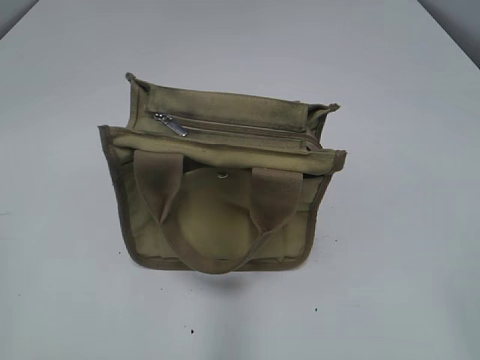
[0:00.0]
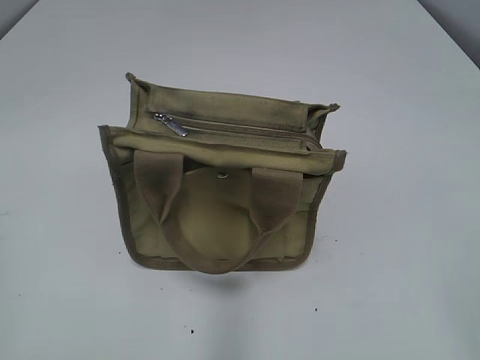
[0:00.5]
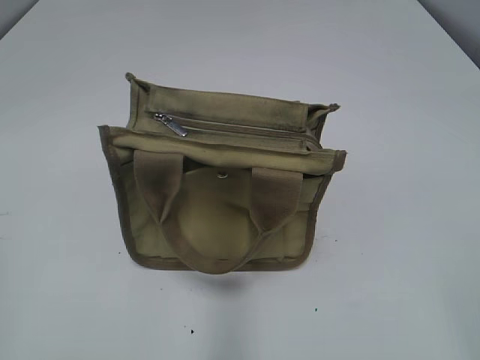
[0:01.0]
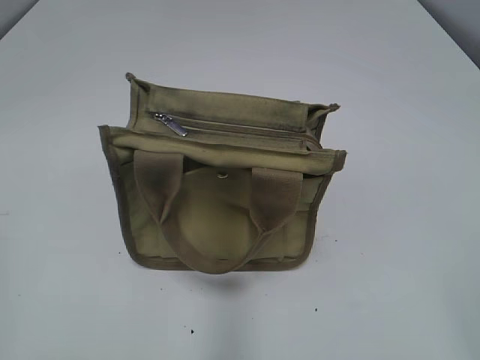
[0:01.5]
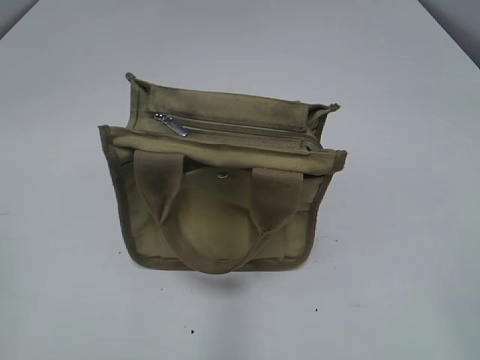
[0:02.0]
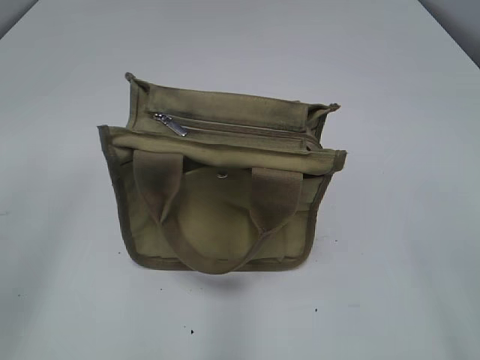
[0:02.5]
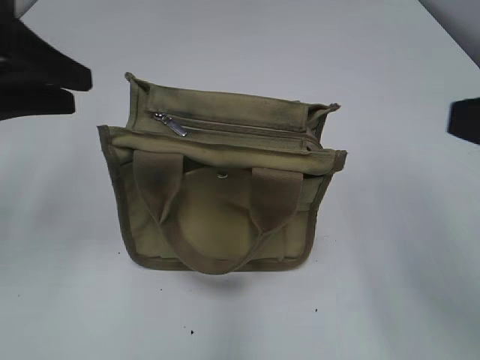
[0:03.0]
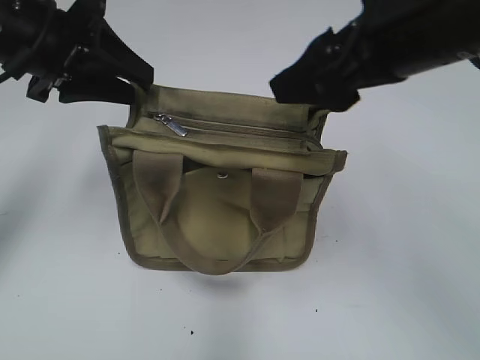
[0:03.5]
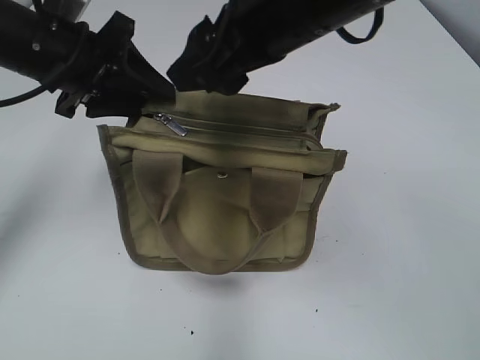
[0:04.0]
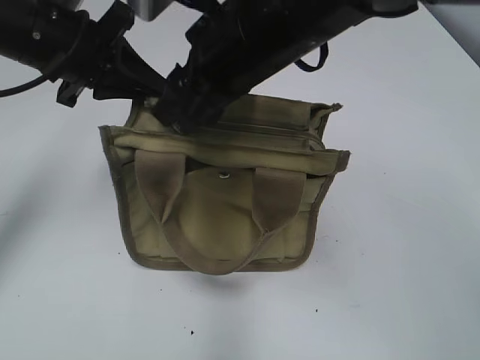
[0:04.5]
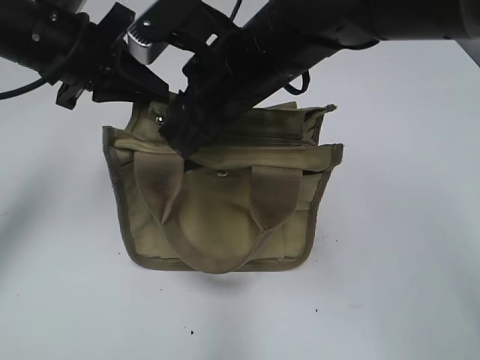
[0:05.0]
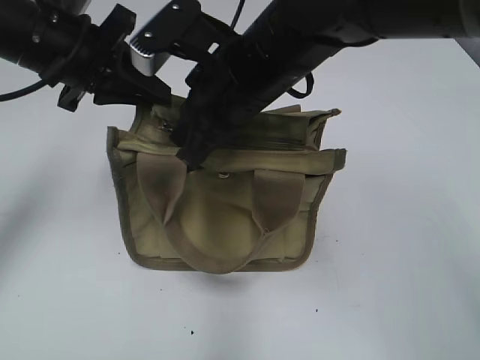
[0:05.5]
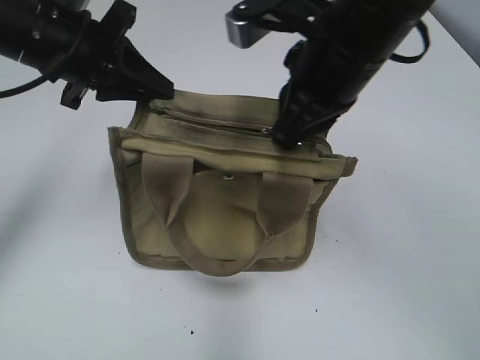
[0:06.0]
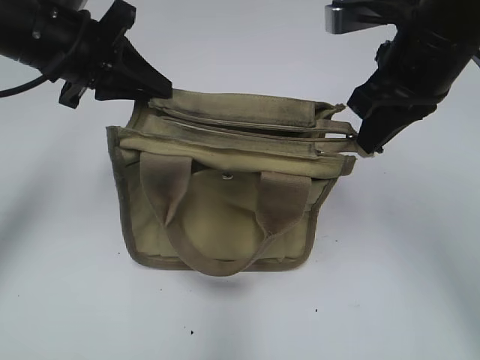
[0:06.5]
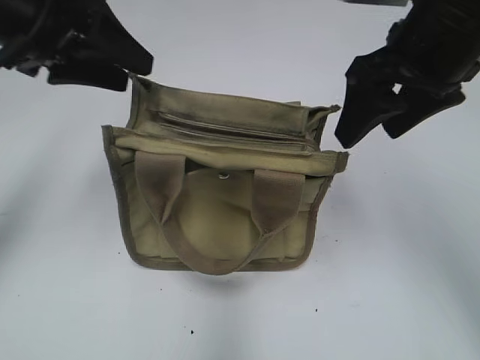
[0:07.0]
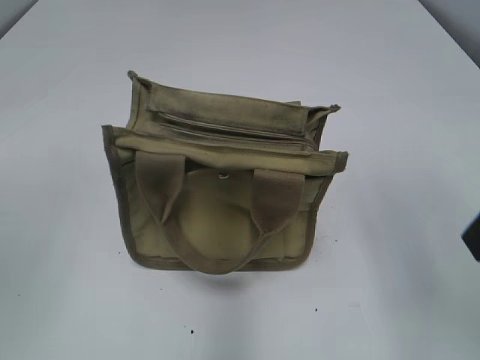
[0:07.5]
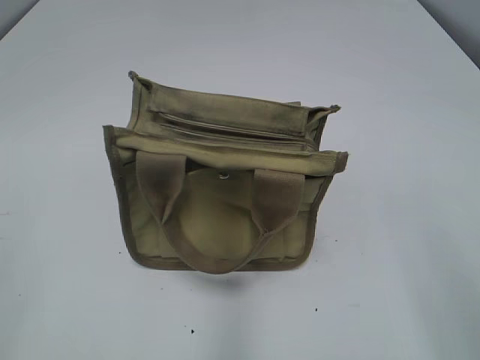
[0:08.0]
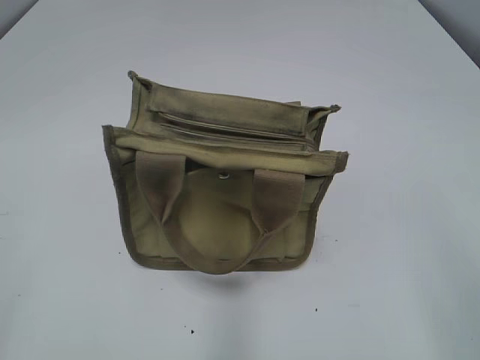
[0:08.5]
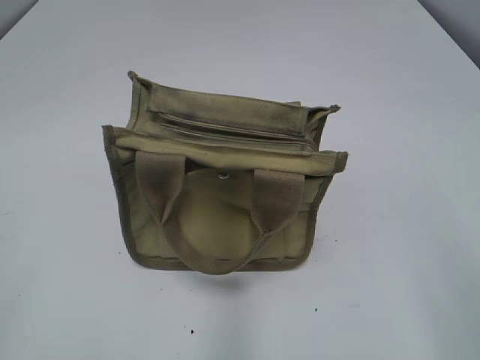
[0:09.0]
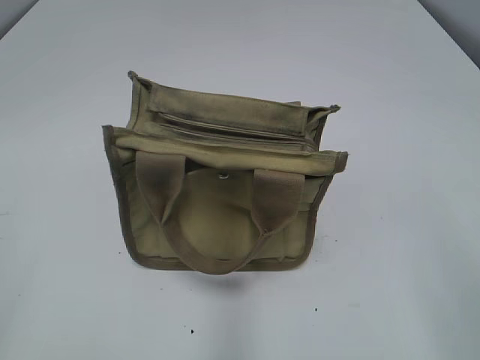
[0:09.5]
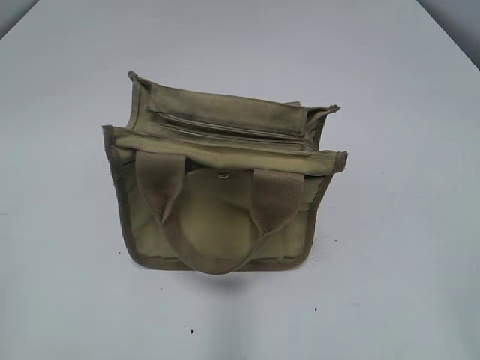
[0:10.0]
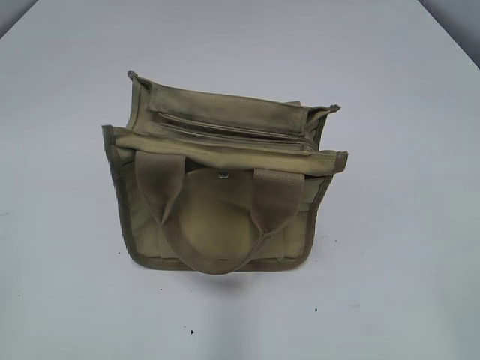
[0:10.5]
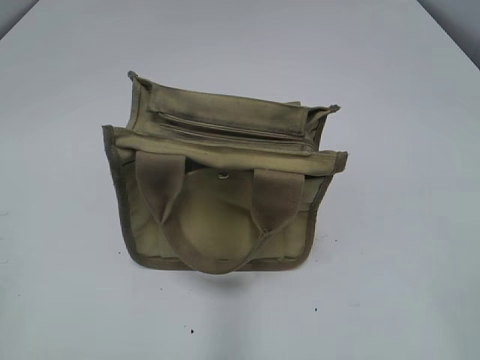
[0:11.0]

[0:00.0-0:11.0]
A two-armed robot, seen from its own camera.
Step, 0:00.0 to 0:06.5: Pull open the zipper with your right hand.
0:02.0 to 0:03.5: The left gripper goes roughly 30 cm forward. The right gripper is displaced forward and to the left by roughly 30 cm.
0:03.5 to 0:05.5: The right gripper shifts some 15 cm to the left, downward and forward, and closes; the left gripper closes up.
0:05.5 to 0:07.5: The left gripper shifts about 20 cm backward, upward and to the left, and opens up. Meanwhile the right gripper travels to the right and backward by roughly 25 cm, and opens.
0:07.5 to 0:09.0: The right gripper shifts roughly 15 cm backward.
